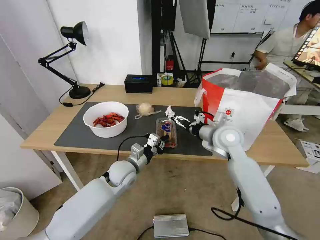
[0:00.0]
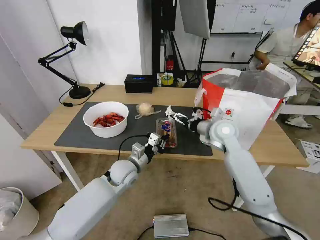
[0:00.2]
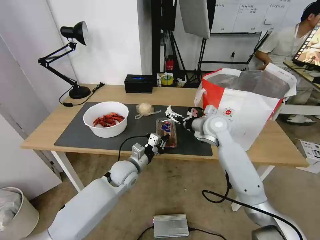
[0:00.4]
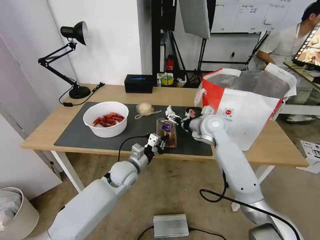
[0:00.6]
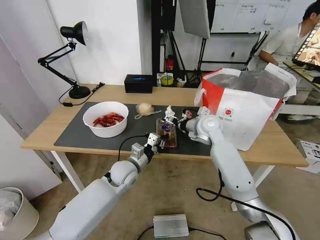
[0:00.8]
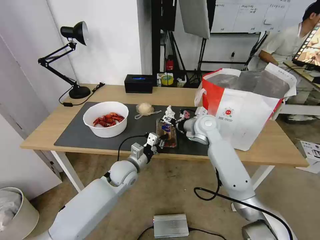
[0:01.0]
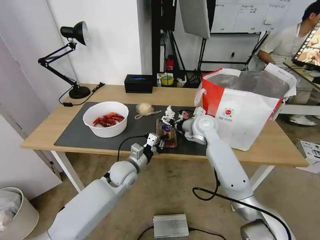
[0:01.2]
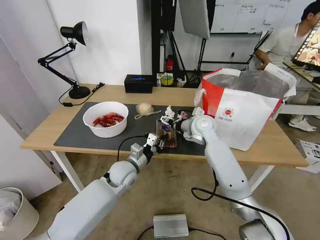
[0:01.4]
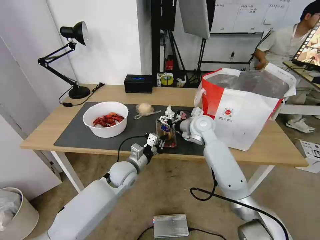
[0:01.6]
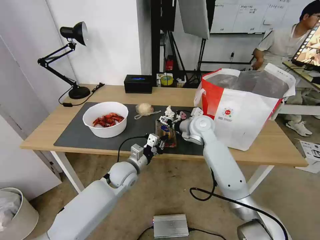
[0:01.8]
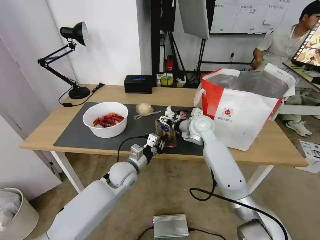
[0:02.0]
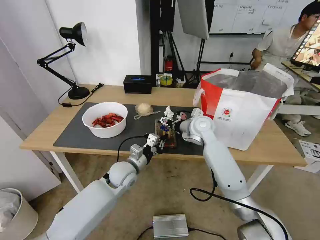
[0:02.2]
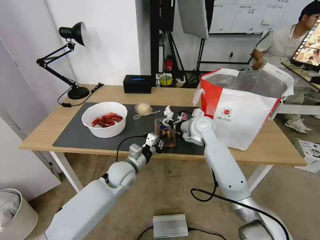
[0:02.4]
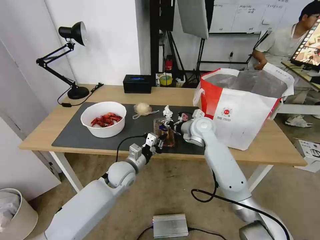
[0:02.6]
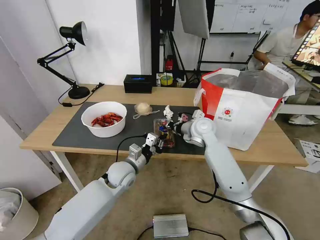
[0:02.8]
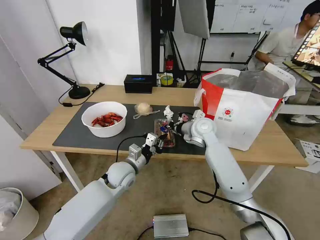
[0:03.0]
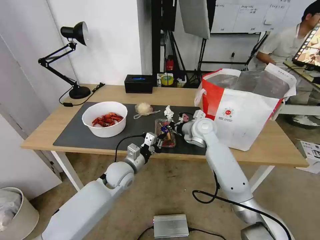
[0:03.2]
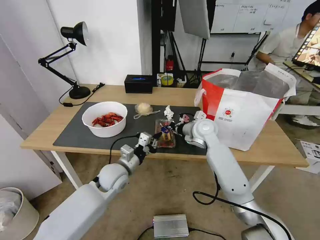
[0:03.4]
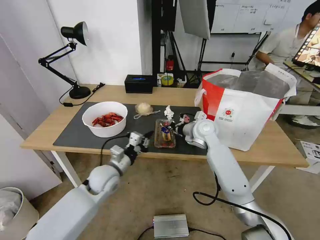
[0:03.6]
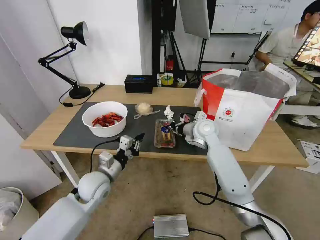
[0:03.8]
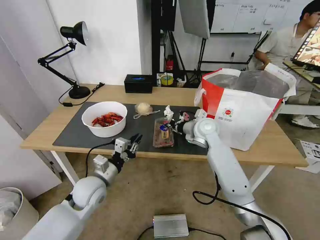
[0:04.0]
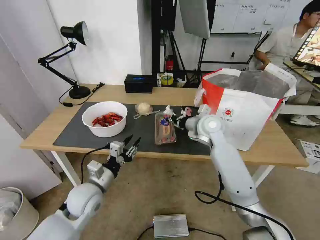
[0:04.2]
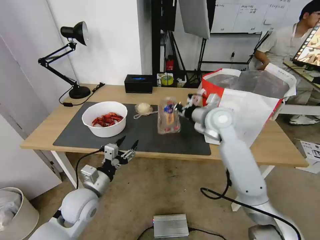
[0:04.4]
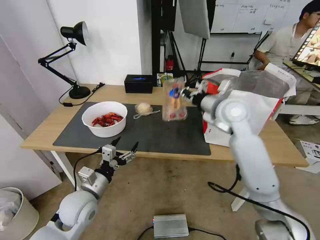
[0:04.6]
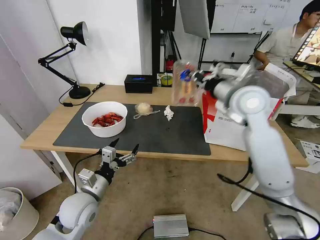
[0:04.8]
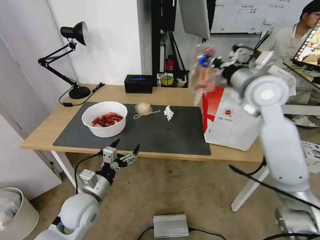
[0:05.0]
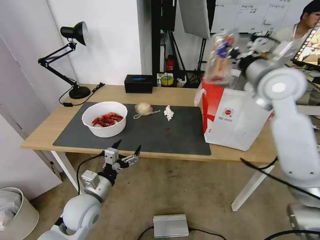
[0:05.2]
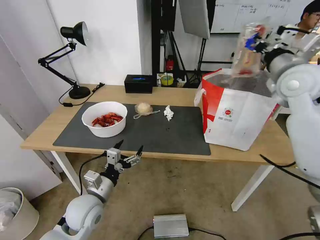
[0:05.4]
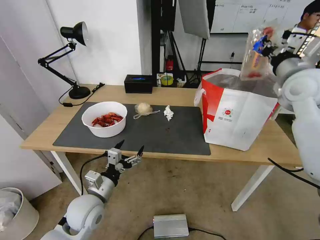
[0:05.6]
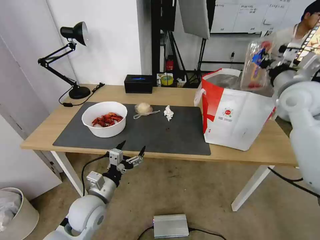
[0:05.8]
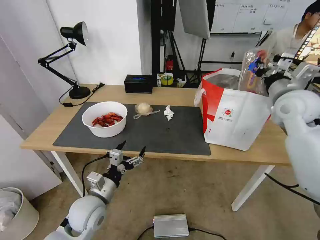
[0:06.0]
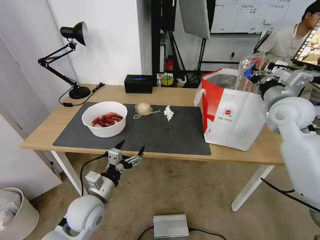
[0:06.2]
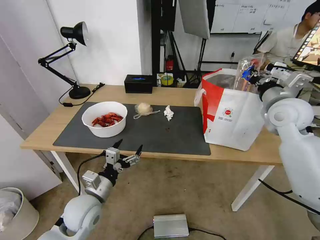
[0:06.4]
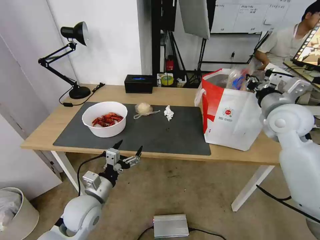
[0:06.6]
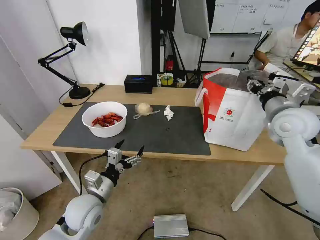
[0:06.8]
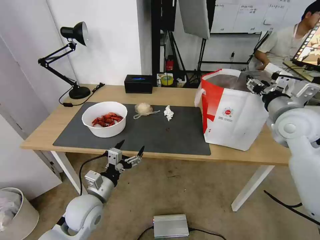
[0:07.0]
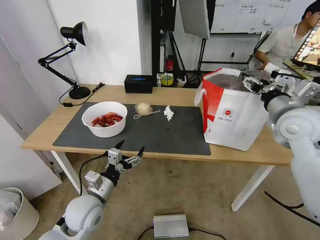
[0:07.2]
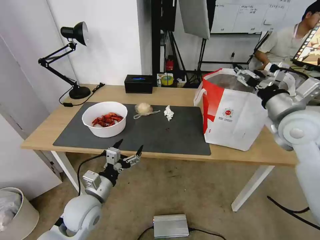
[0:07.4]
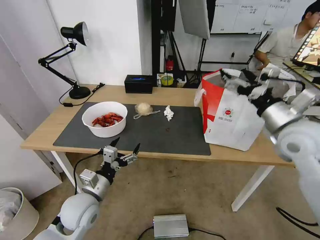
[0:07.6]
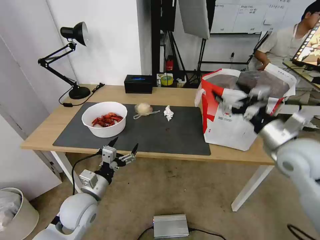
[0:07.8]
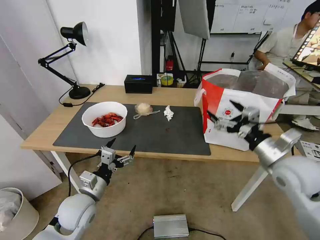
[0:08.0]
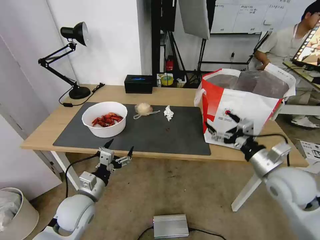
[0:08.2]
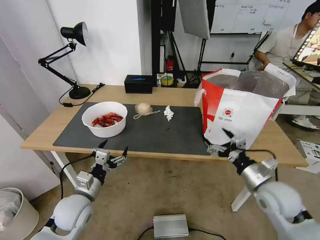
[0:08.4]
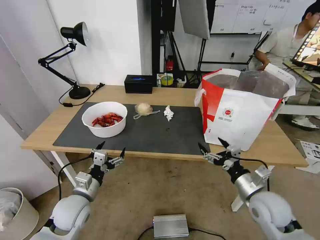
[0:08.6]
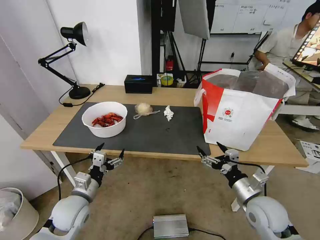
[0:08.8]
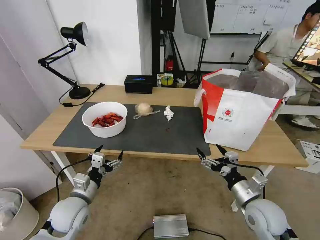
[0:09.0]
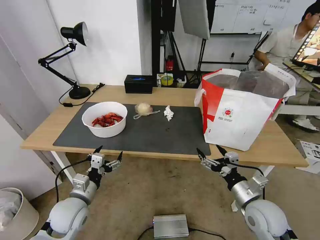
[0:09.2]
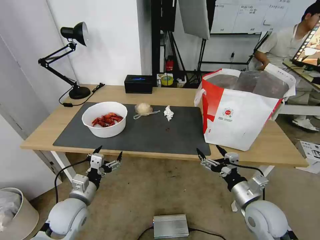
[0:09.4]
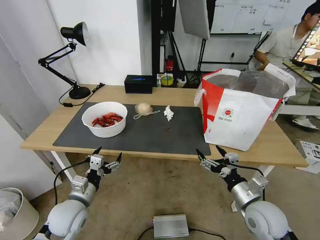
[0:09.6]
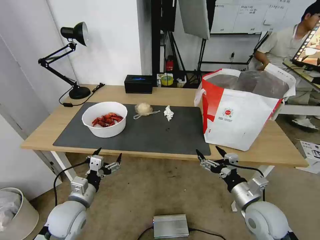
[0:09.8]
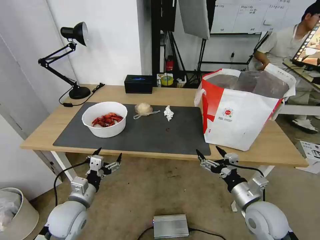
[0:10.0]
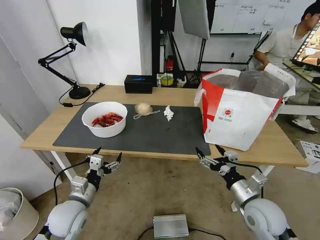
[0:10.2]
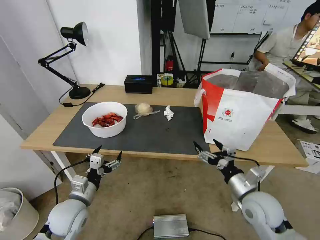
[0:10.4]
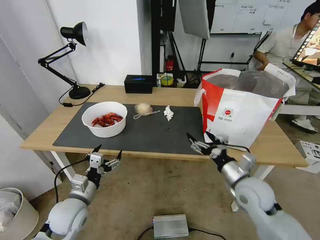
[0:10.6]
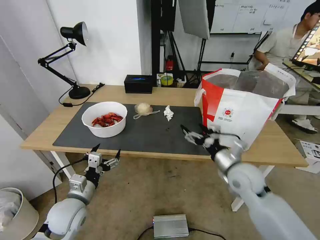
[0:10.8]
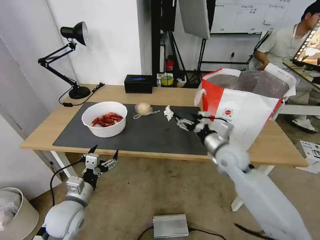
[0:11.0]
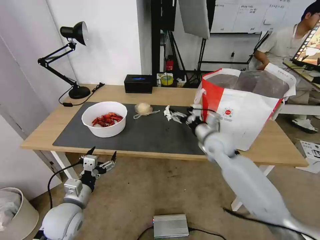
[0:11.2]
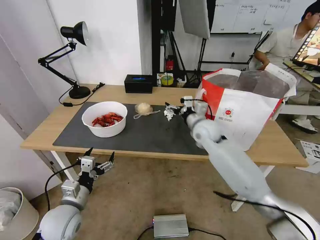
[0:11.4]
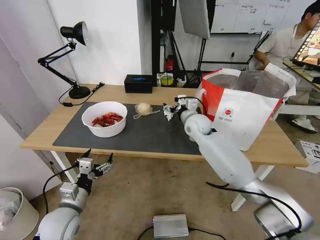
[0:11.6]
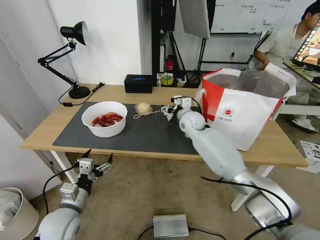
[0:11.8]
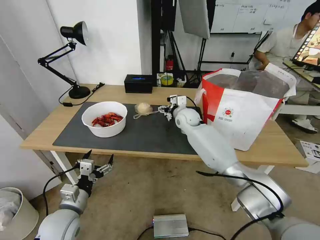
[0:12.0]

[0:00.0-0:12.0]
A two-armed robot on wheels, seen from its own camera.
Task of the whole recording: Pick up the trash from the table and place it into the takeout bag.
0:00.0 to 0:01.6: The right gripper travels forward and to the left by roughly 10 cm.
0:01.6 to 0:03.0: The right gripper closes up.
0:03.0 to 0:04.4: The left gripper is displaced backward and to the left by some 15 cm, and opens its fingers; the right gripper goes about 10 cm upward.
0:04.4 to 0:06.0: The right gripper goes some 20 cm to the right and upward.
0:06.0 to 0:07.6: The right gripper moves backward, approximately 10 cm, and opens up.
0:07.6 to 0:09.0: The right gripper heads downward and backward, covering roughly 25 cm. The left gripper ends up some 5 cm from where it was.
0:09.0 to 0:10.4: The grippers make only small movements.
0:10.4 to 0:12.0: The right gripper travels forward and to the left by some 35 cm.

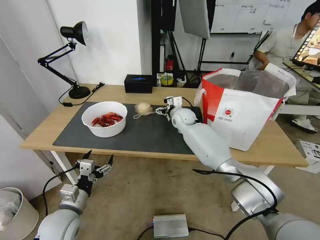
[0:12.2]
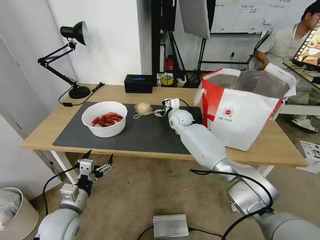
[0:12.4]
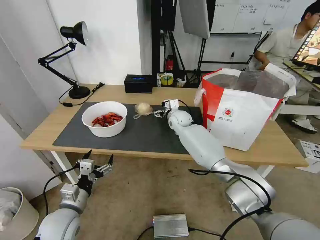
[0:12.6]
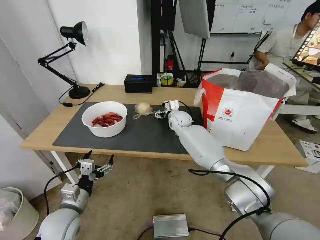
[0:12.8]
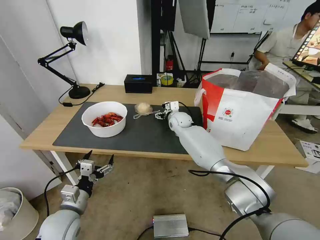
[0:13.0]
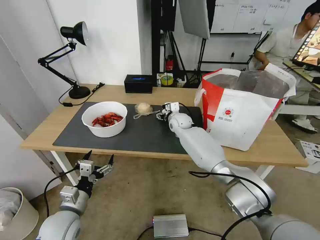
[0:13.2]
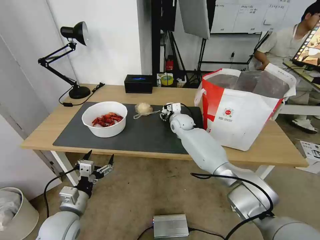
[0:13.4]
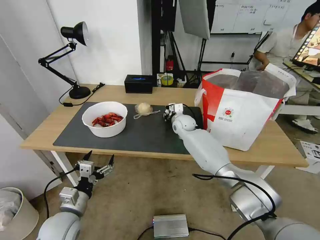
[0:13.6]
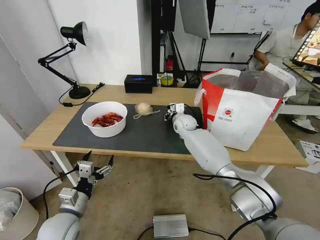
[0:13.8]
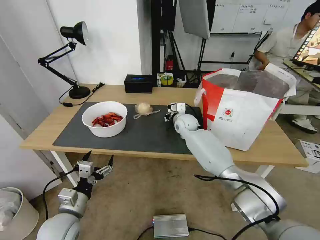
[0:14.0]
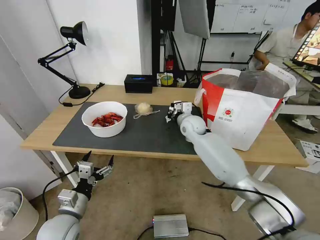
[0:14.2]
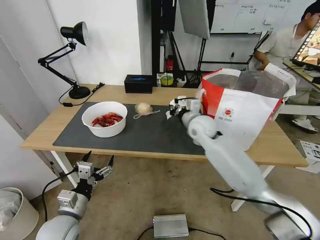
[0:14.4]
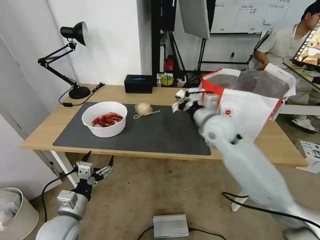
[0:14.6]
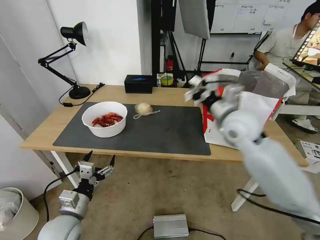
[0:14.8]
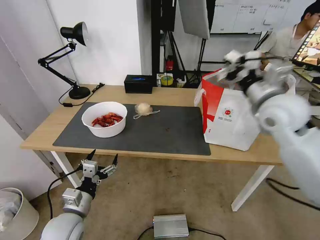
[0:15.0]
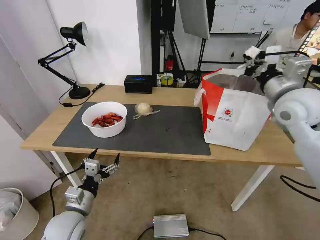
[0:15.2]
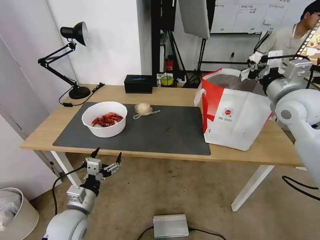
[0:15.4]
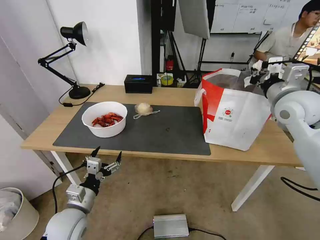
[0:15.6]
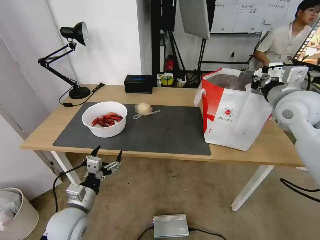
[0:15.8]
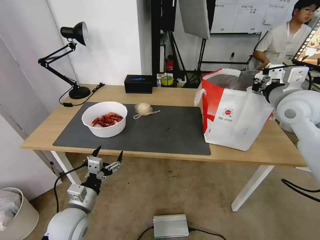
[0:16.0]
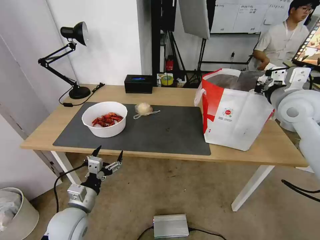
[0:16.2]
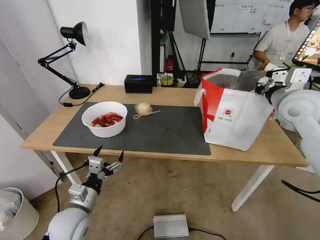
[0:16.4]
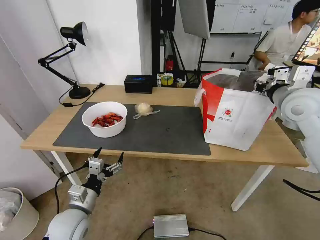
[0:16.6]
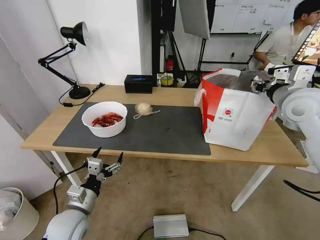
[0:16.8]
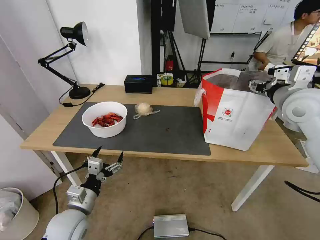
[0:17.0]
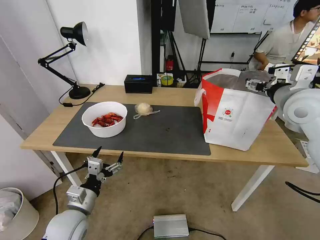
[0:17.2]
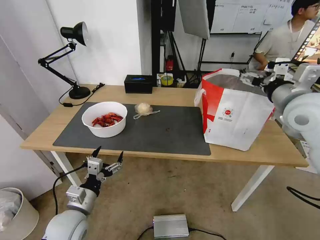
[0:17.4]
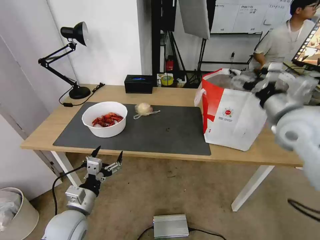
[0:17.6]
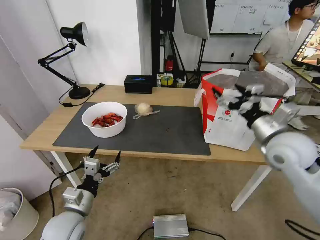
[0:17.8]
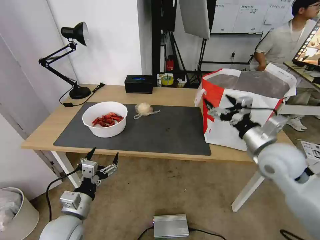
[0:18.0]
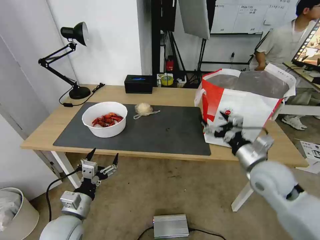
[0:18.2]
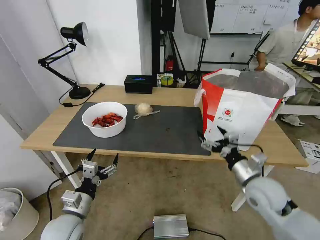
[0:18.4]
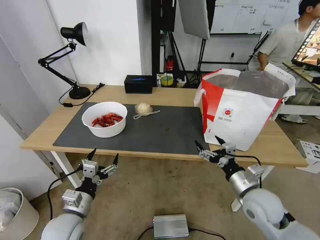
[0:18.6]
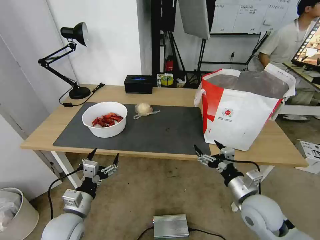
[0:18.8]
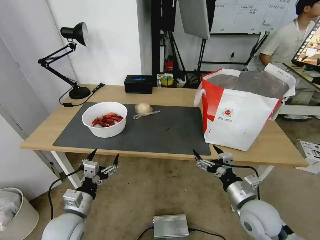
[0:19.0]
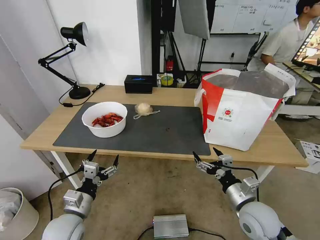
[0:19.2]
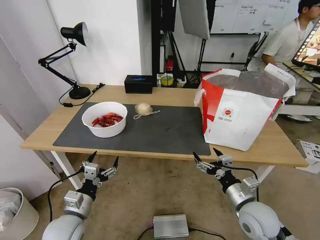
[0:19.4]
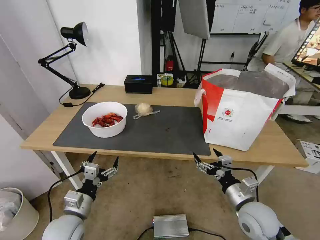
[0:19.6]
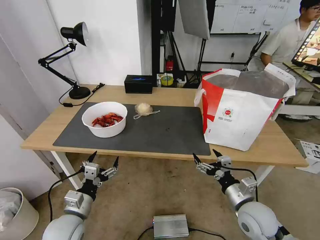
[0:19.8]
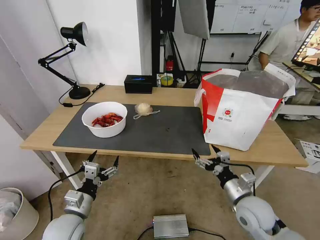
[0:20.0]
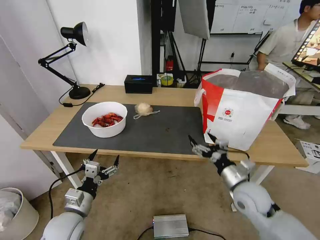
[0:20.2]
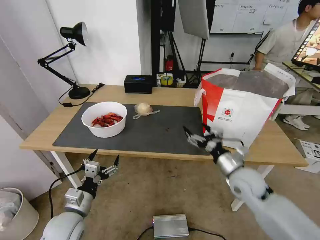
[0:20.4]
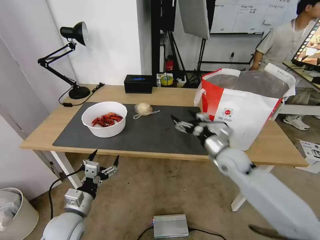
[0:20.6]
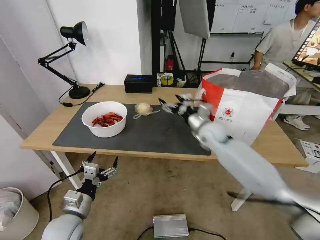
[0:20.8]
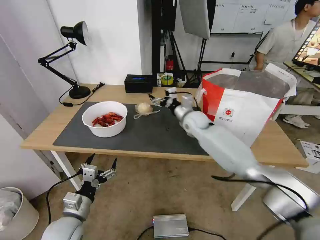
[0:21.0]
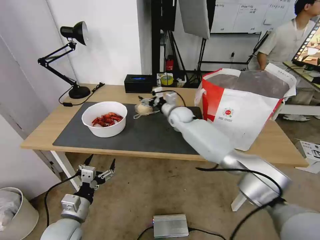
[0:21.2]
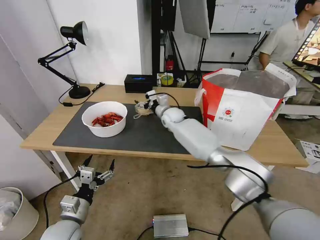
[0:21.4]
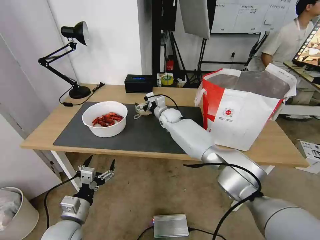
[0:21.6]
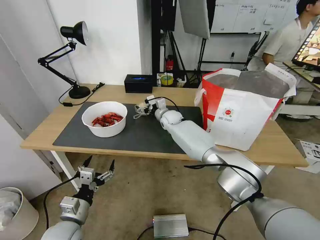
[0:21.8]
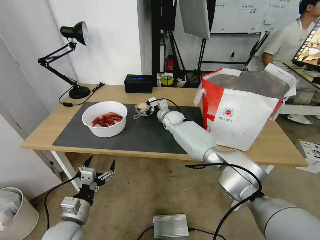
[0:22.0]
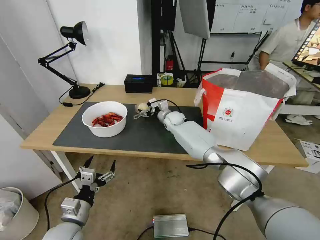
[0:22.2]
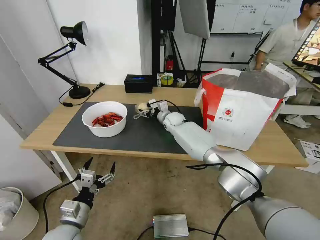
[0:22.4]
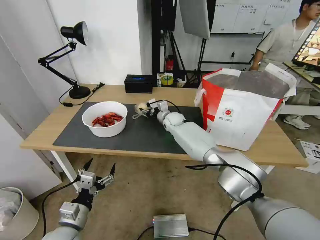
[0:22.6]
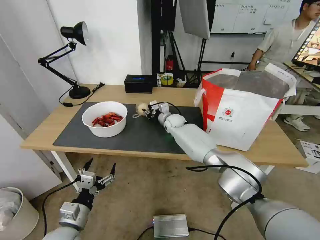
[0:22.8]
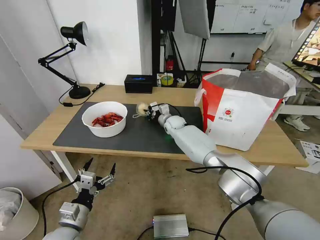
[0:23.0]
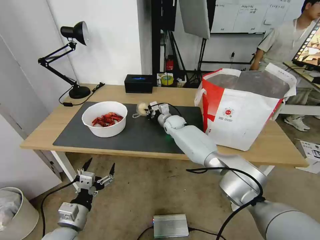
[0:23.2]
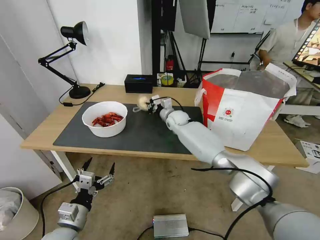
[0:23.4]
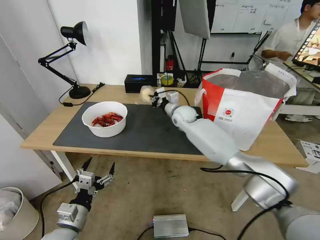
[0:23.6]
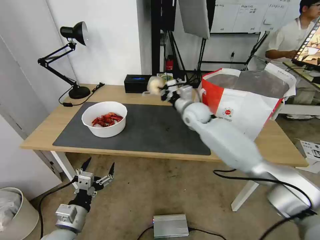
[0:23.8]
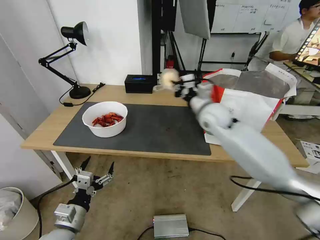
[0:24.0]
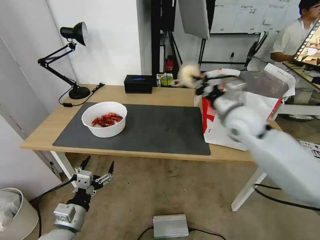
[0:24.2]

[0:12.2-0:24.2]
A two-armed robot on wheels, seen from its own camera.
Task of the whole recording: Pick up the trash from the table and place it into the takeout bag.
0:12.2 to 0:13.8: The right gripper closes up.
0:13.8 to 0:15.2: The right gripper heads upward, to the right and backward, covering some 35 cm.
0:16.6 to 0:18.2: The right gripper shifts approximately 20 cm downward and backward, and opens its fingers.
0:18.2 to 0:19.8: The right gripper heads downward and backward, covering approximately 15 cm.
0:19.8 to 0:21.2: The right gripper goes approximately 40 cm forward and to the left.
0:21.2 to 0:22.6: The right gripper moves downward, roughly 5 cm, and closes.
0:22.6 to 0:24.2: The right gripper moves backward, upward and to the right, about 30 cm, and closes.
